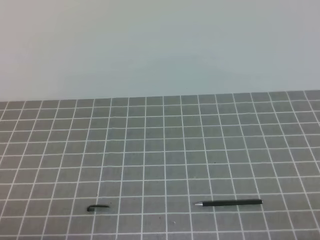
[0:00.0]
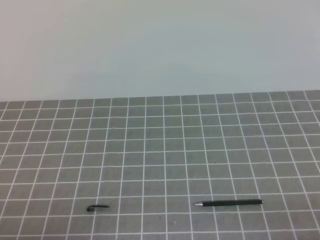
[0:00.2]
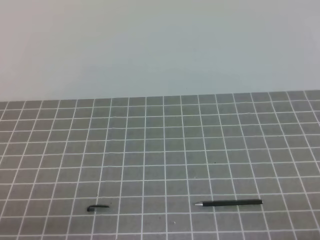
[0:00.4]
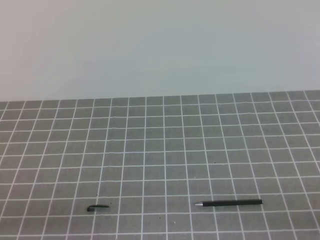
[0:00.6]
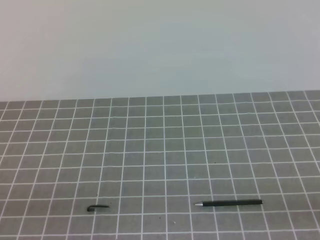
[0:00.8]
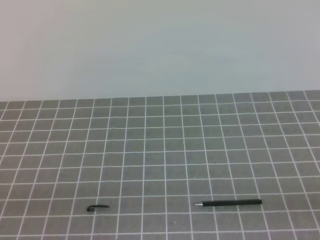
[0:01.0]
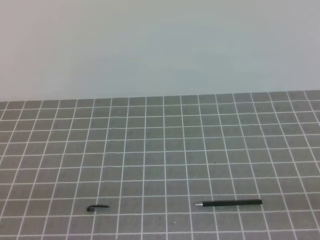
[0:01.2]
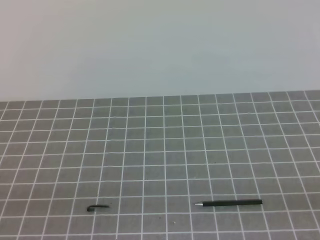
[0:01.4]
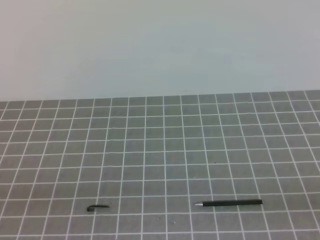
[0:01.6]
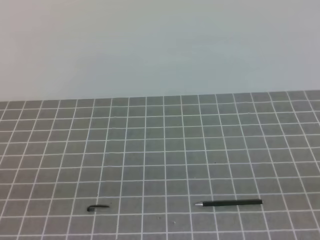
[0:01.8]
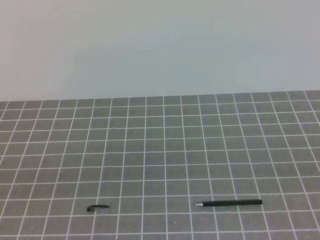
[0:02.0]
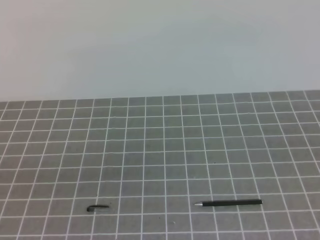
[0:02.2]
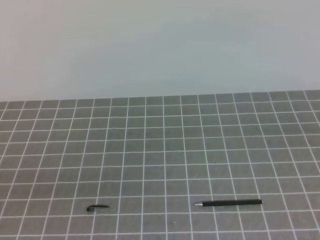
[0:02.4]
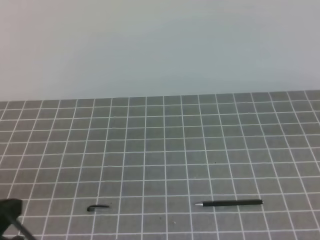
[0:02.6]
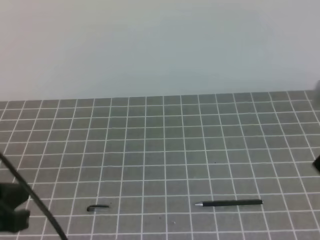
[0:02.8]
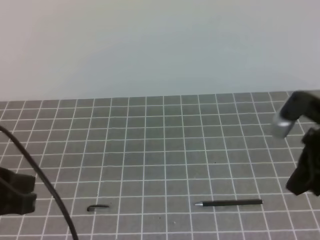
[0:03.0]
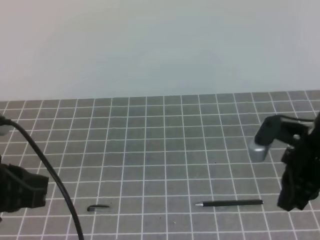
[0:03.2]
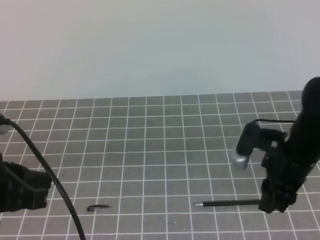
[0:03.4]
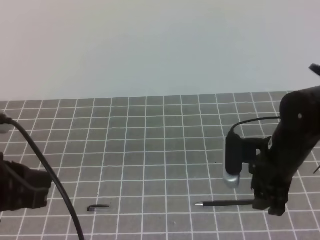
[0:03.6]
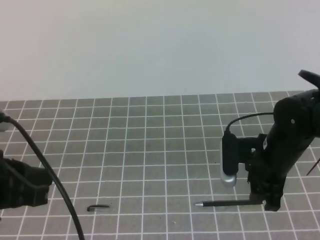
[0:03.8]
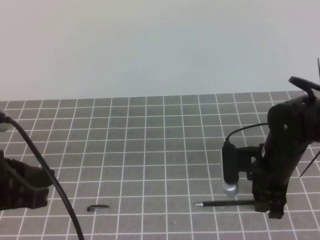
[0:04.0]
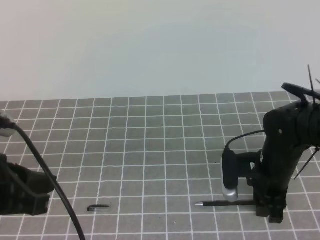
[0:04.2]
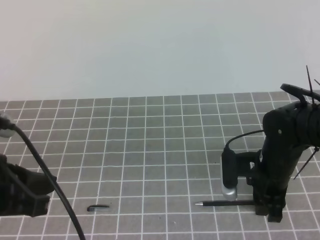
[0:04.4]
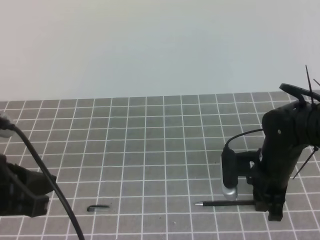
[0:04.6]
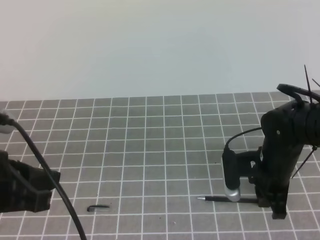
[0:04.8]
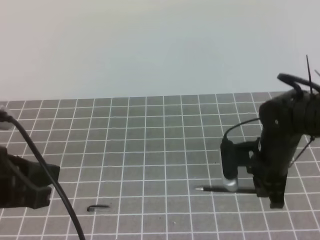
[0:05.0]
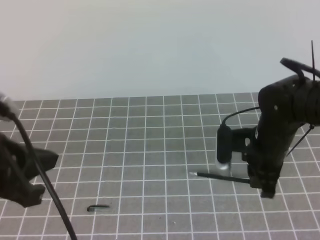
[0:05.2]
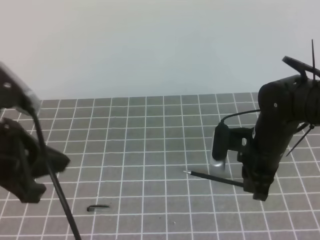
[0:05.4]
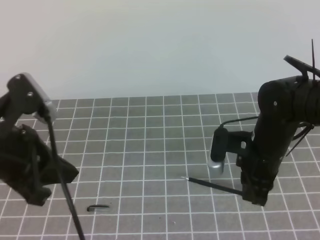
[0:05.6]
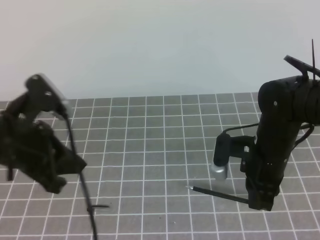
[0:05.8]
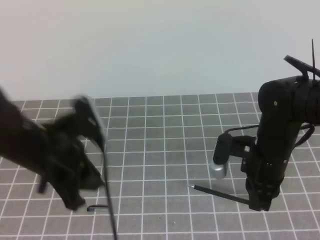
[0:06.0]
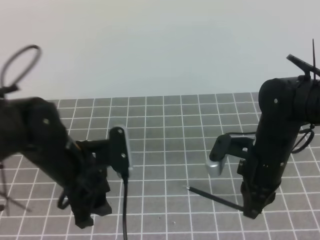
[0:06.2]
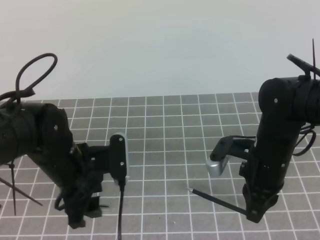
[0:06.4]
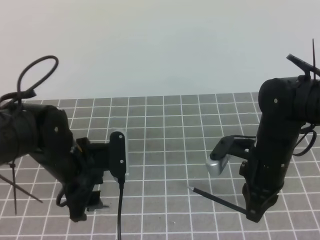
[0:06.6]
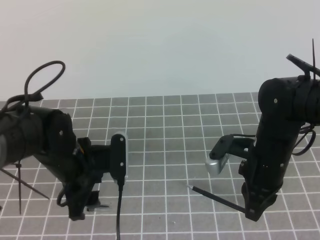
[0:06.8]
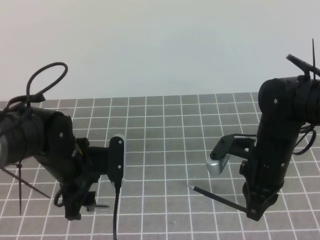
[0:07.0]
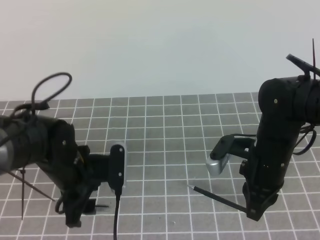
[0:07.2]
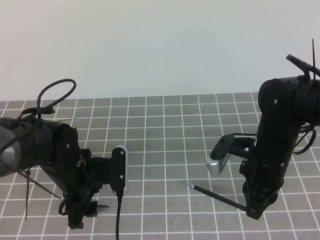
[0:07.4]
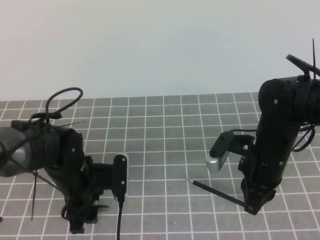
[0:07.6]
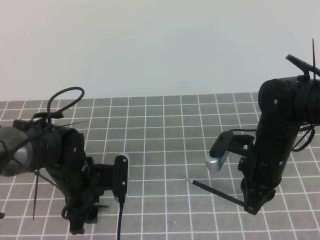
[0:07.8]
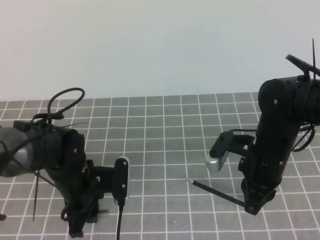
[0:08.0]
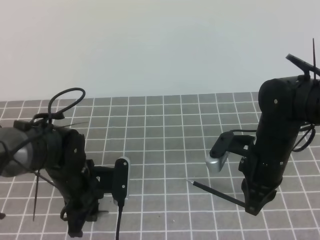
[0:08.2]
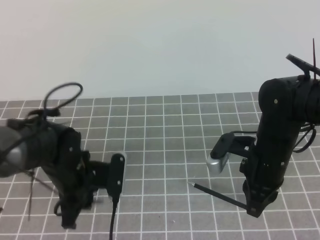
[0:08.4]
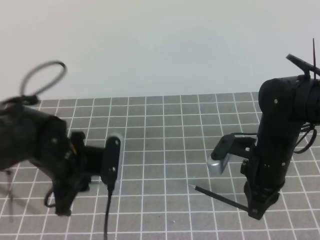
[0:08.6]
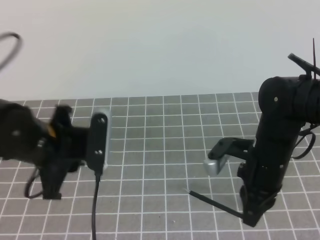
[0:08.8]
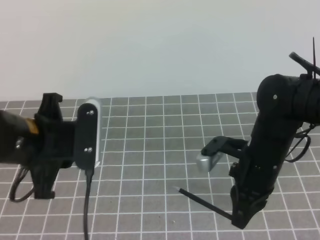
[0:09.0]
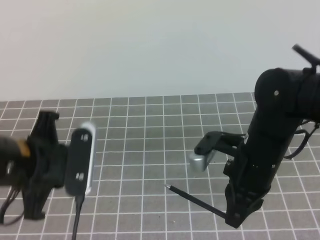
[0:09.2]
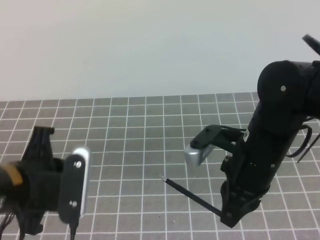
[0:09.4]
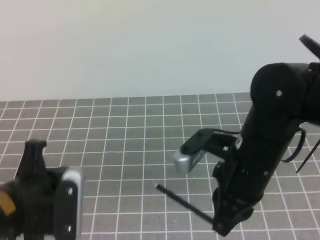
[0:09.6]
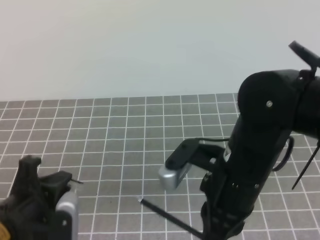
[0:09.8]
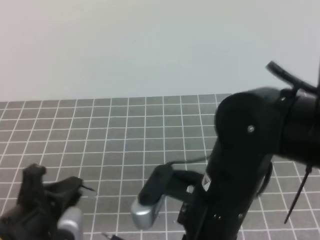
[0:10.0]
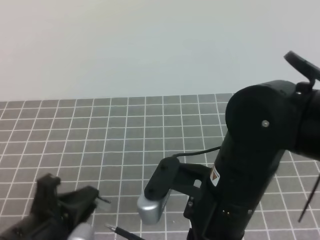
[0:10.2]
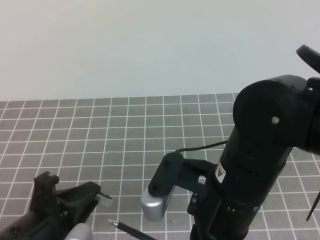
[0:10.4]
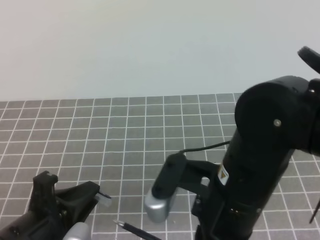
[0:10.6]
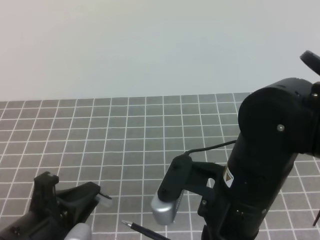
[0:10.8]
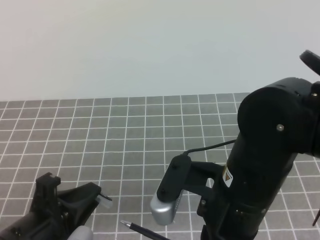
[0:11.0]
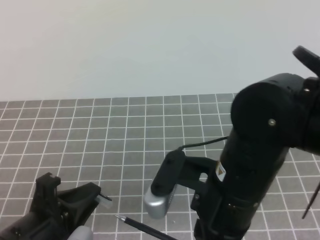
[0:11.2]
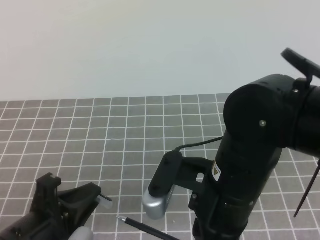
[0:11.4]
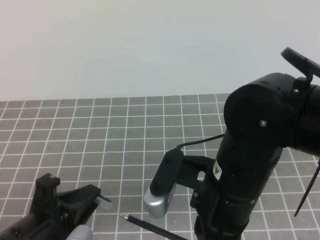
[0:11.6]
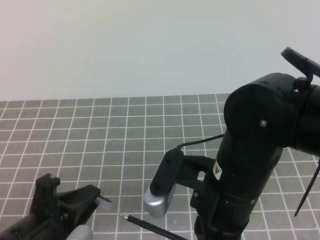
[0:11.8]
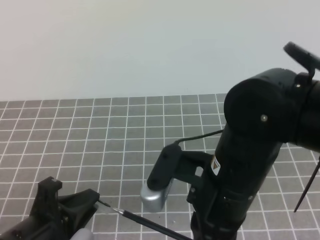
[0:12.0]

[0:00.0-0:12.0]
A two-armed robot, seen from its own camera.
Task of the whole recording: on the grey tablecloth, hold the pen cap in one hand and the pen in the other, then cover the pen cap.
0:01.6 to 0:03.0: The left gripper heads forward and upward, covering about 10 cm. The right gripper heads forward, covering roughly 20 cm.
0:03.0 to 0:04.4: The right gripper is displaced downward, to the left and forward by approximately 15 cm, and opens its fingers.
0:04.4 to 0:06.0: The right gripper closes its fingers. The left gripper shifts about 10 cm forward, and opens its fingers.
0:06.0 to 0:07.6: The left gripper is displaced downward by roughly 10 cm, and opens up.
0:07.6 to 0:09.0: The left gripper moves upward and backward, approximately 15 cm, and closes its fingers.
0:09.0 to 0:10.4: The right gripper shifts roughly 15 cm backward, upward and to the left. Meanwhile the left gripper shifts about 10 cm backward and downward.
0:10.4 to 0:12.0: The grippers move only a little.

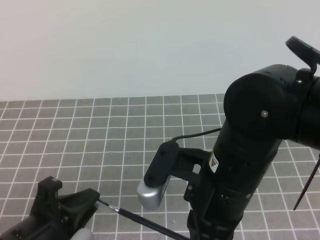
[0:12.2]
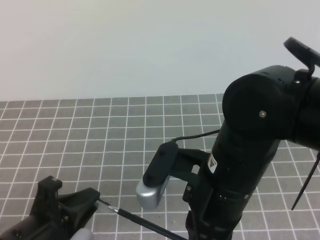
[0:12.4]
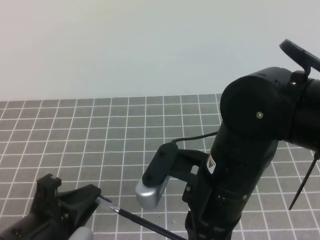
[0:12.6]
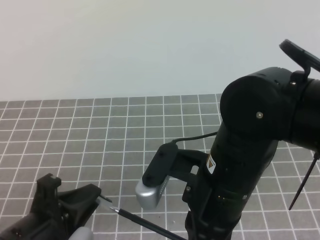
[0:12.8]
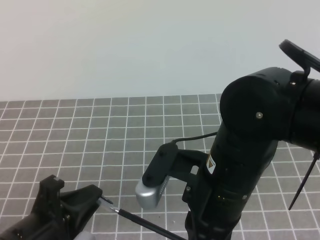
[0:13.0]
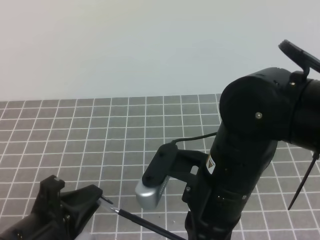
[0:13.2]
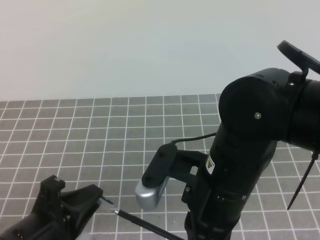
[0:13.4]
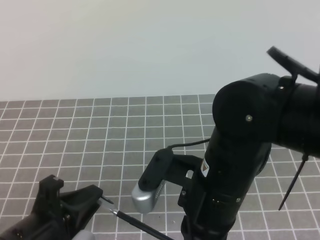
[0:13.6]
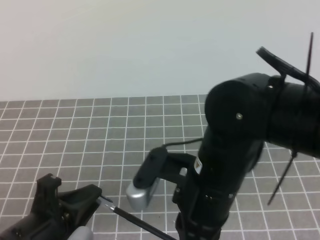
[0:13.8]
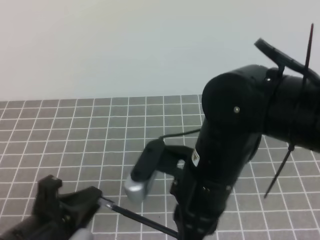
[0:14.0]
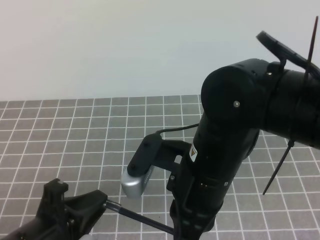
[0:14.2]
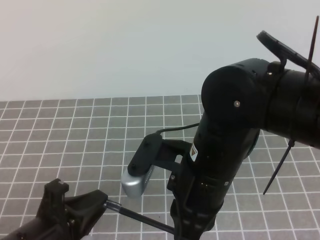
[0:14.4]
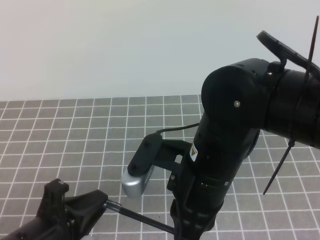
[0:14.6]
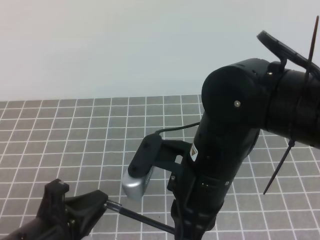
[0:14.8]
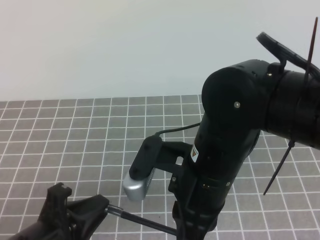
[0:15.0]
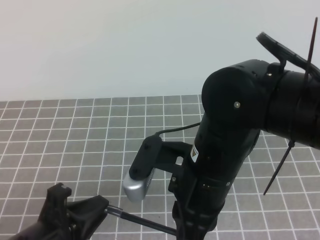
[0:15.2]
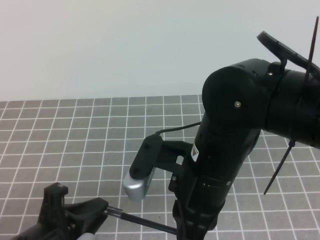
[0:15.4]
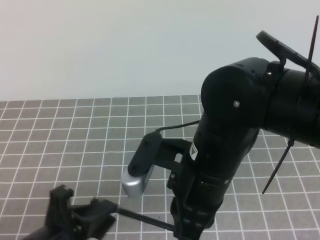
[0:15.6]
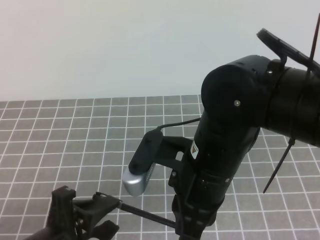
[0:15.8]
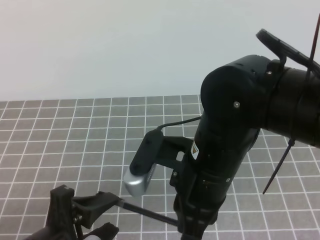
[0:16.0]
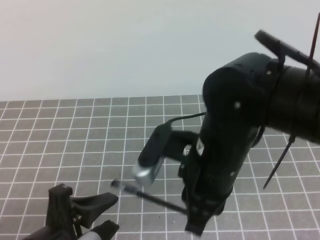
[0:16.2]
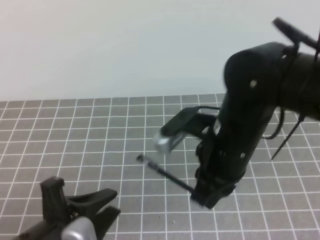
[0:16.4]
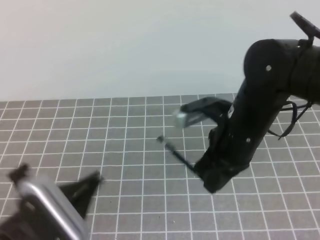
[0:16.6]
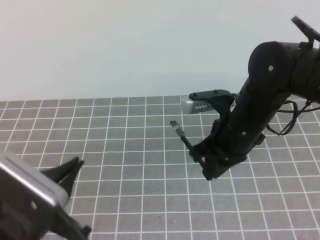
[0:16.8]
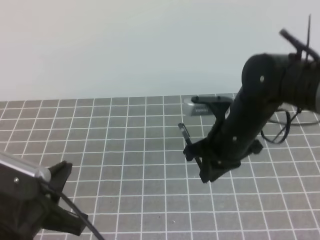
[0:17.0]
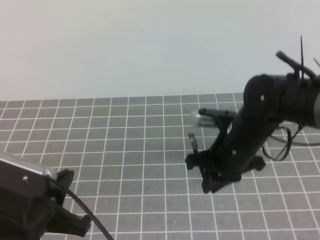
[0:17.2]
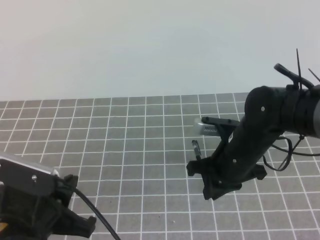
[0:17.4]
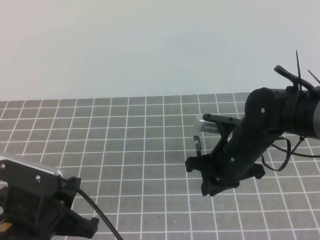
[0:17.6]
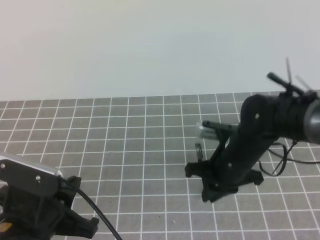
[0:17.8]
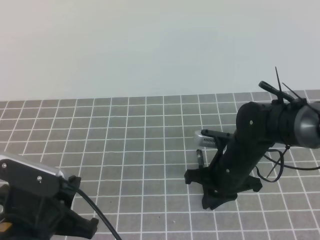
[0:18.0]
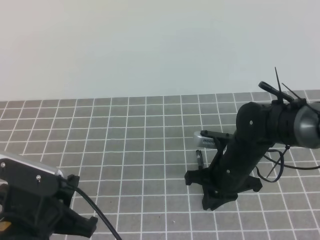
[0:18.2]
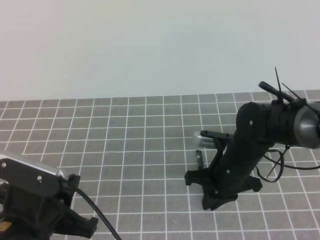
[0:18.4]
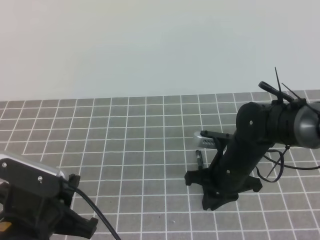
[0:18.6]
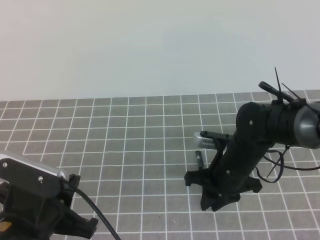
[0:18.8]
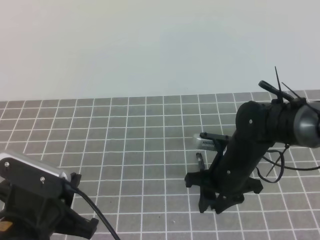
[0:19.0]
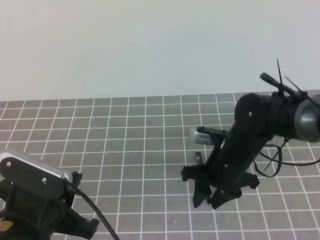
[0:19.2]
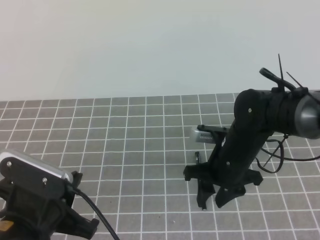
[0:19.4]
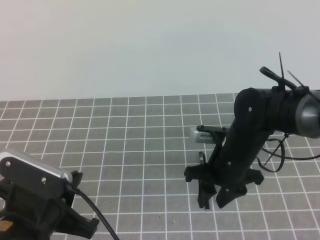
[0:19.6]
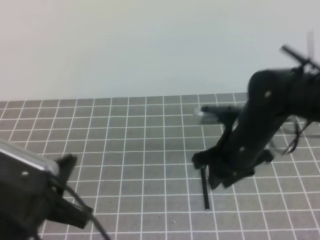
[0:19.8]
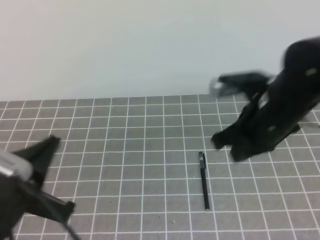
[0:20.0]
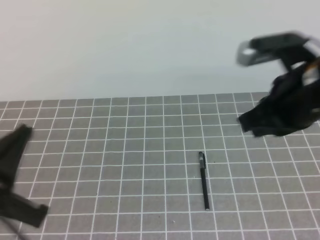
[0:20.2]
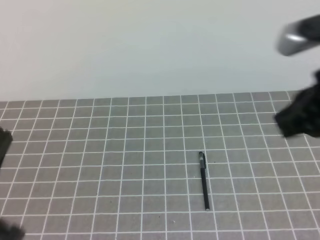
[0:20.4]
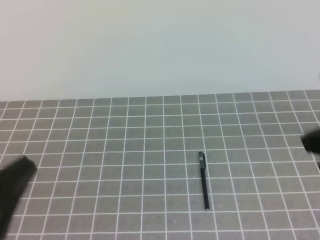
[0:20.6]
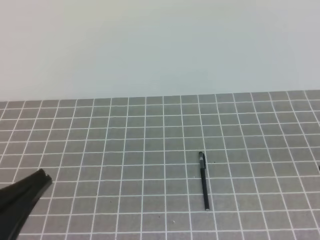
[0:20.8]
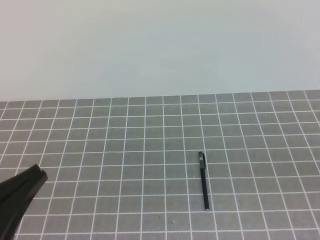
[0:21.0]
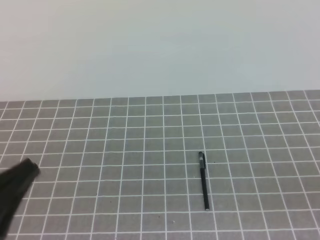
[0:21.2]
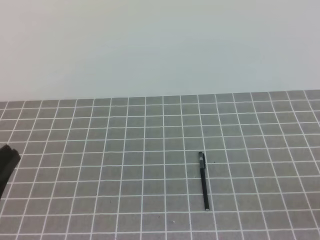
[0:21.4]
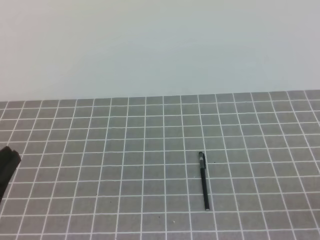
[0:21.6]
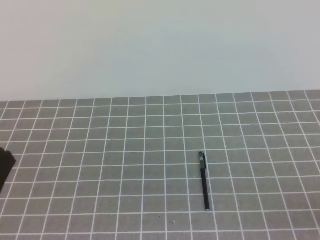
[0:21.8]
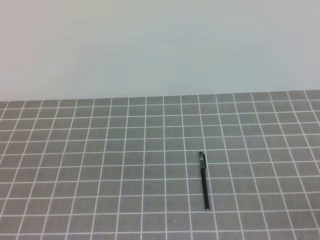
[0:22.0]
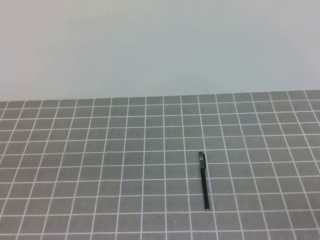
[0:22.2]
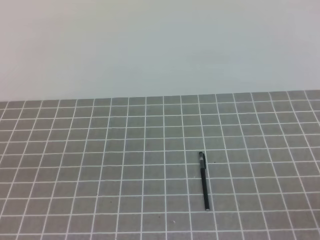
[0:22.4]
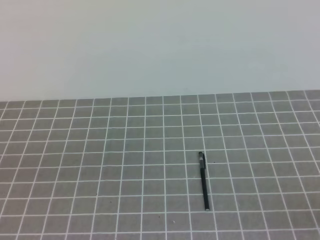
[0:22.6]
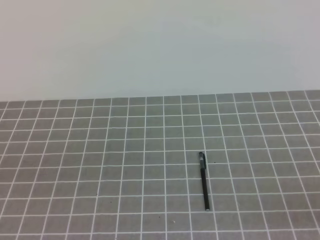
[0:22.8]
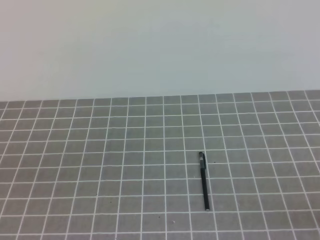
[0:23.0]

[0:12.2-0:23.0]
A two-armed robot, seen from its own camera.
Task of the whole recording: on the grey tablecloth, hold the pen cap in one hand and the pen in the other, then cover the pen cap.
0:12.2 to 0:15.2: There are only small adjustments of the grippers.
0:15.2 to 0:16.8: The left gripper opens, then closes once more. The right gripper goes approximately 10 cm forward and to the right.
0:16.8 to 0:18.4: The right gripper heads downward, covering about 10 cm.
0:18.4 to 0:20.0: The left gripper shifts roughly 5 cm upward, while the right gripper is displaced upward by about 15 cm, and opens and closes again.
0:20.0 to 0:21.4: The right gripper travels backward and to the right by about 25 cm. The left gripper is displaced backward by roughly 5 cm.
0:21.4 to 0:23.0: The left gripper travels to the left by roughly 5 cm.
